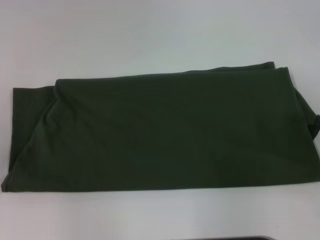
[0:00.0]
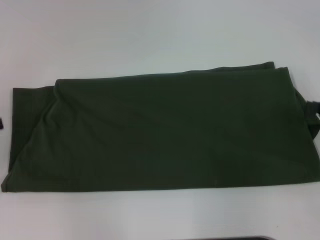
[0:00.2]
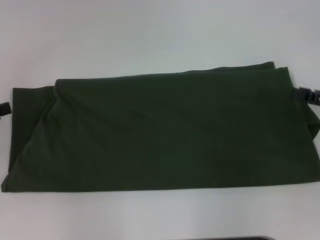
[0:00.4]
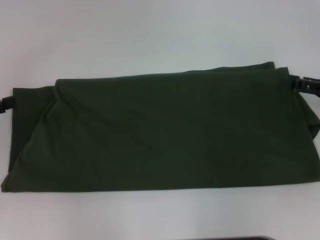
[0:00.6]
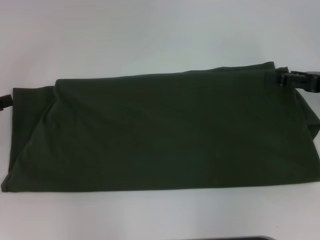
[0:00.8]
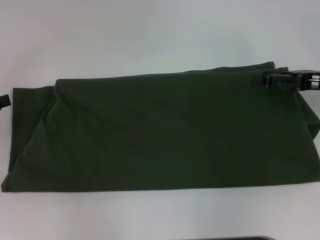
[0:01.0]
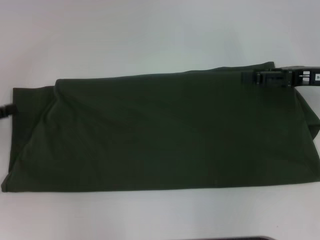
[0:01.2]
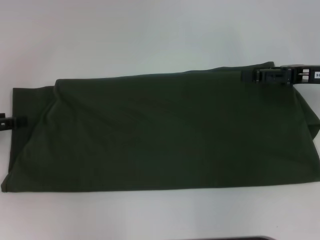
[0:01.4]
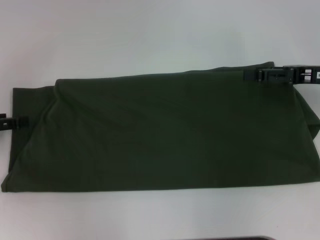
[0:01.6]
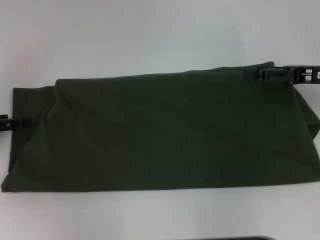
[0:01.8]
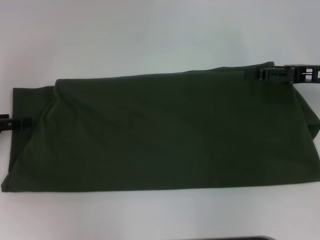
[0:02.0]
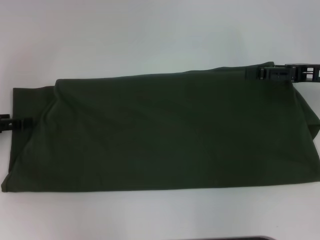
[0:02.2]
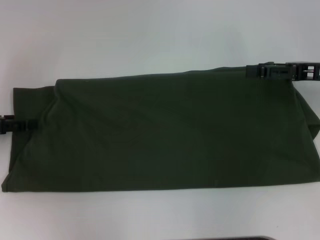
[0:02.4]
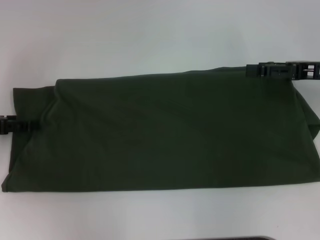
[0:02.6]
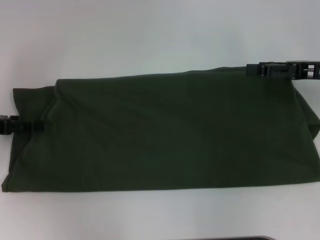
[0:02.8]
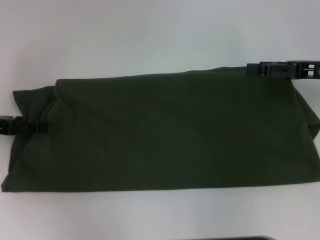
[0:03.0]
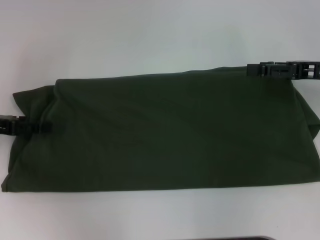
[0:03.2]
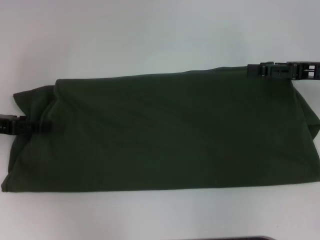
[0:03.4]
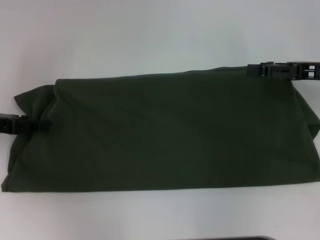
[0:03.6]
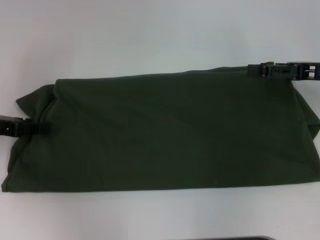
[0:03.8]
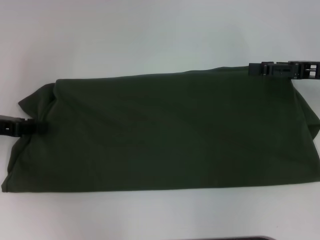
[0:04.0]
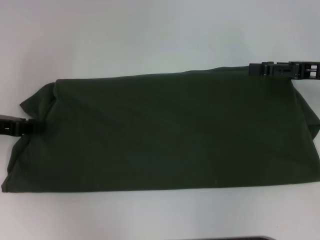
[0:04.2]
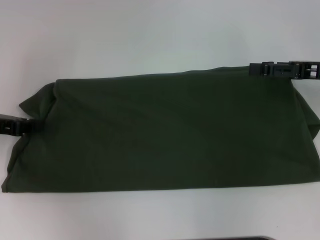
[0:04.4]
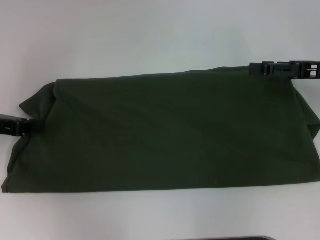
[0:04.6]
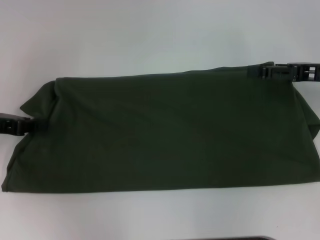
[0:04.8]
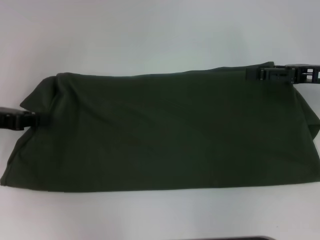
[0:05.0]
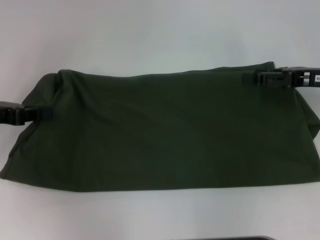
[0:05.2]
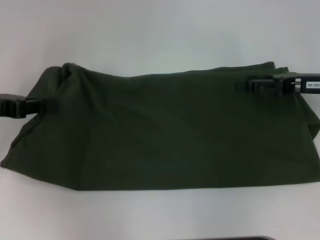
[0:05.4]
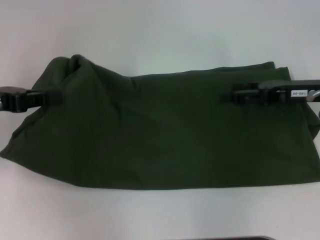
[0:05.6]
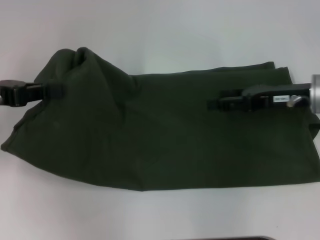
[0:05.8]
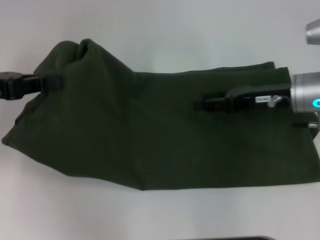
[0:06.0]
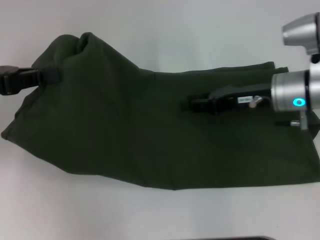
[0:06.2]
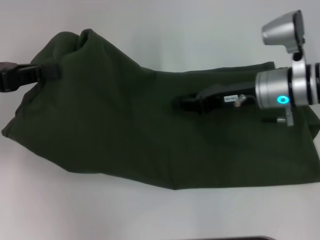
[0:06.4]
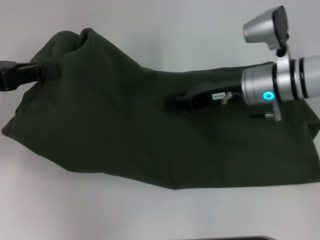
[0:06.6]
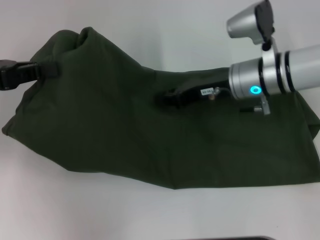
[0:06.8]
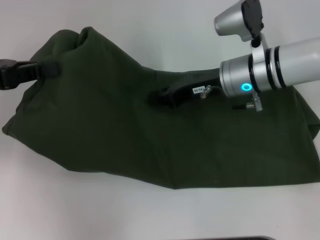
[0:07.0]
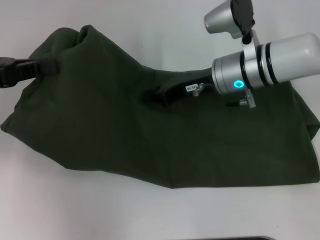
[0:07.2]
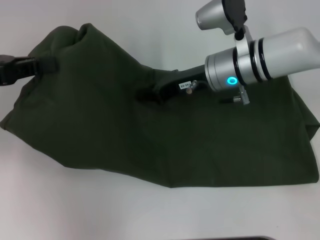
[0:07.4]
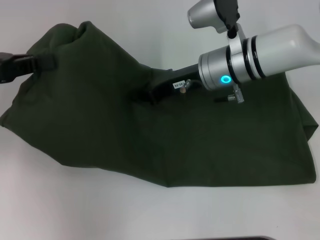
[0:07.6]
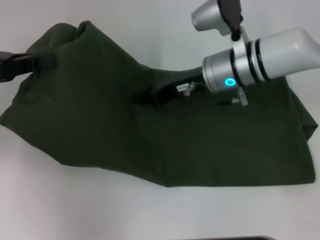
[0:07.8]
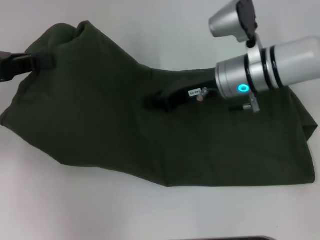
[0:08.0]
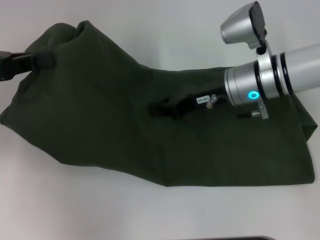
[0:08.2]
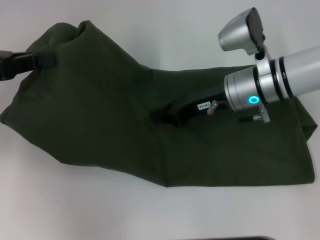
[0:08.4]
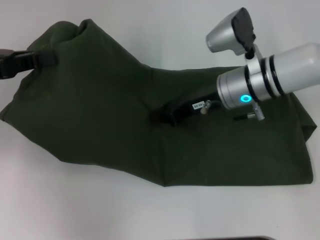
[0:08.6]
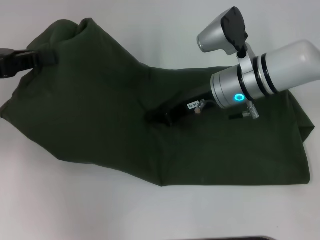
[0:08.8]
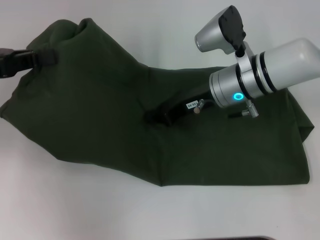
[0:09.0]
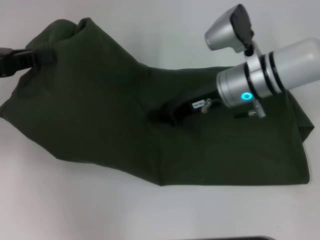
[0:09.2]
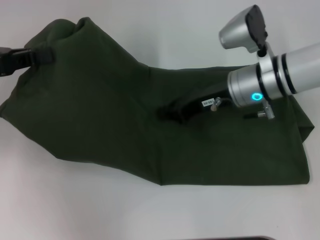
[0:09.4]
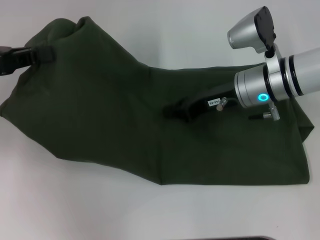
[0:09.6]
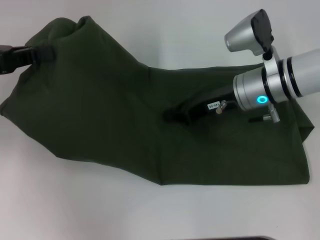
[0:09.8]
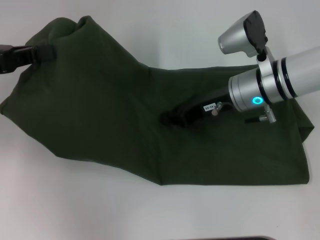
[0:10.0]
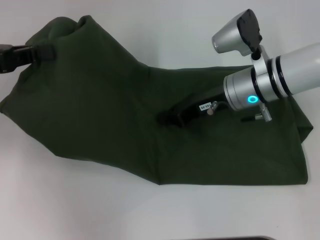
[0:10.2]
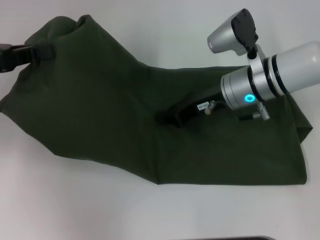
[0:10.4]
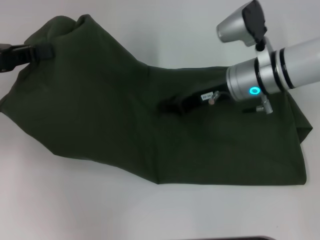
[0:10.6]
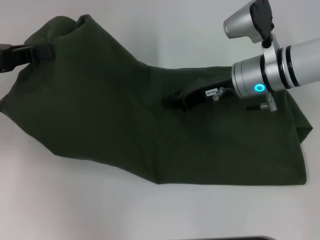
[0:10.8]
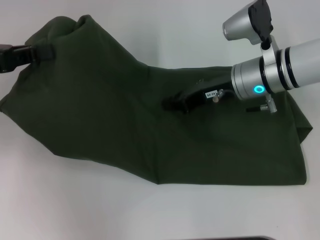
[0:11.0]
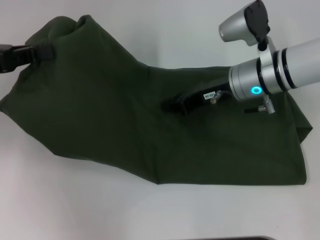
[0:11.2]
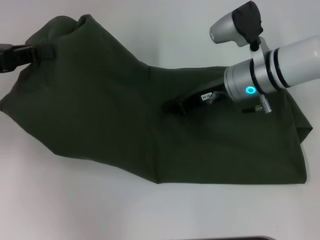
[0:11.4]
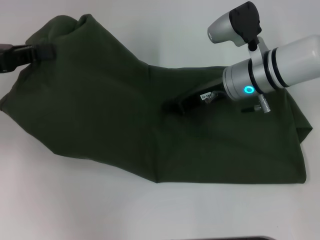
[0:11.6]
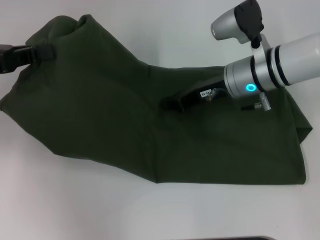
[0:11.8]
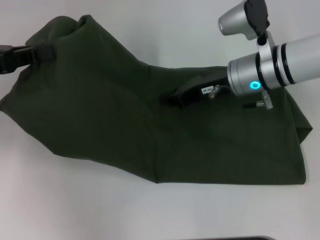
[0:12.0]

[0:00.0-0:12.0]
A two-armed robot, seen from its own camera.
0:00.0 to 0:01.6: The right gripper moves forward and to the left, some 15 cm, while the left gripper goes roughly 10 cm forward.
0:01.6 to 0:03.0: The grippers make only small movements.
0:03.0 to 0:04.4: The left gripper closes up.
0:04.4 to 0:06.0: The left gripper is displaced upward by approximately 5 cm, while the right gripper heads to the left, covering approximately 10 cm.
0:06.0 to 0:07.6: The right gripper moves to the left, approximately 15 cm, and closes its fingers.
0:07.6 to 0:12.0: The grippers make only small movements.

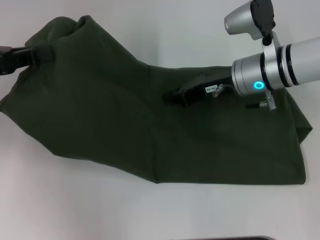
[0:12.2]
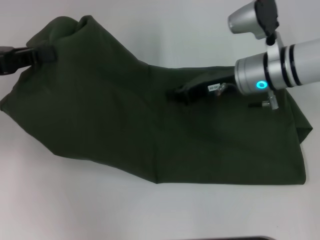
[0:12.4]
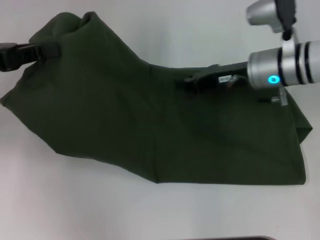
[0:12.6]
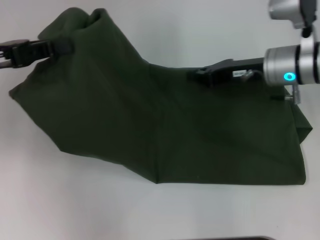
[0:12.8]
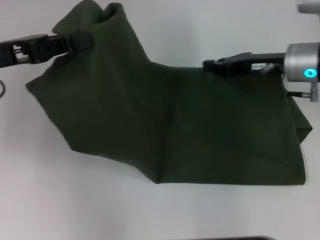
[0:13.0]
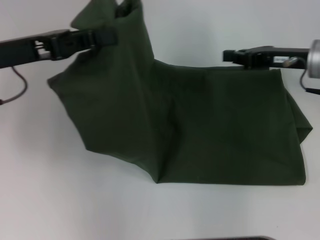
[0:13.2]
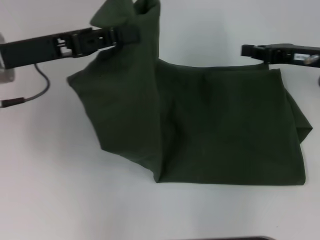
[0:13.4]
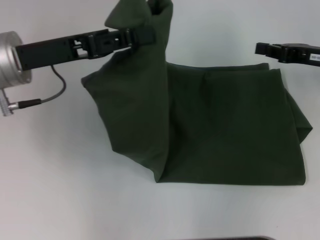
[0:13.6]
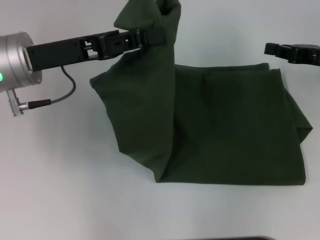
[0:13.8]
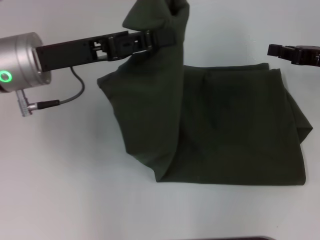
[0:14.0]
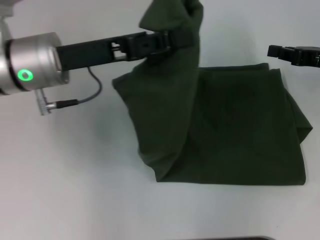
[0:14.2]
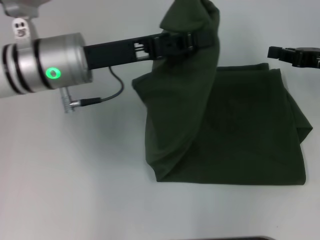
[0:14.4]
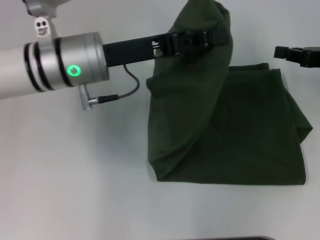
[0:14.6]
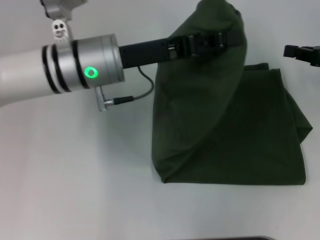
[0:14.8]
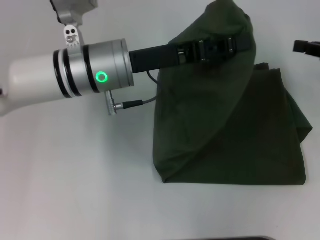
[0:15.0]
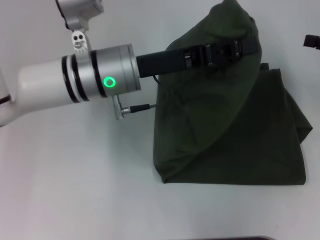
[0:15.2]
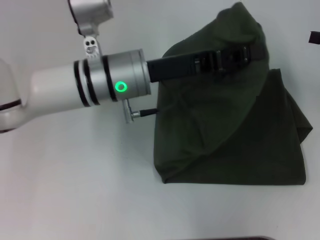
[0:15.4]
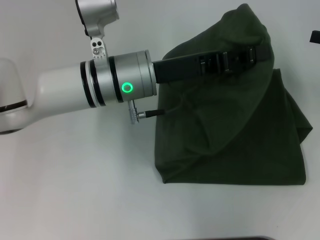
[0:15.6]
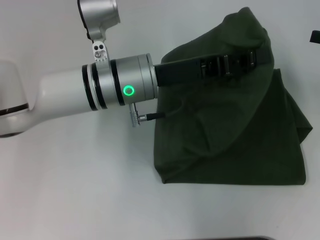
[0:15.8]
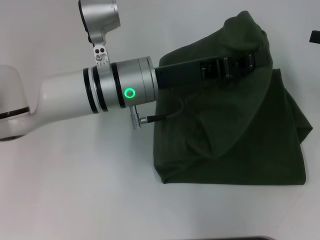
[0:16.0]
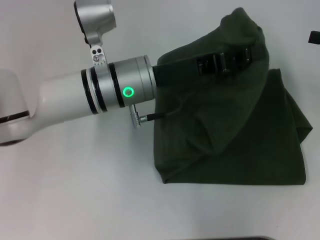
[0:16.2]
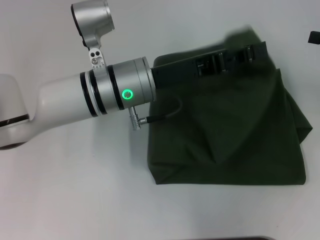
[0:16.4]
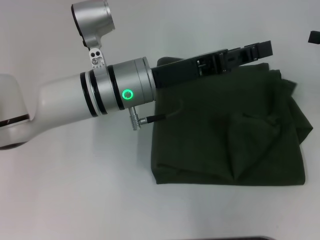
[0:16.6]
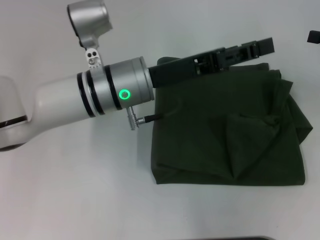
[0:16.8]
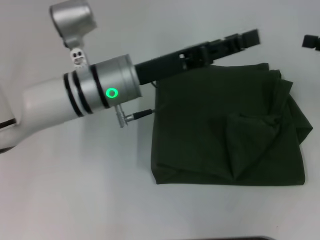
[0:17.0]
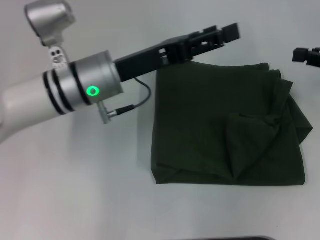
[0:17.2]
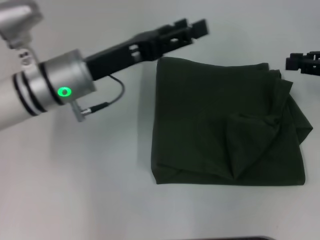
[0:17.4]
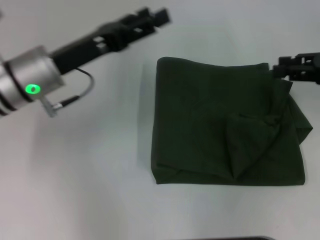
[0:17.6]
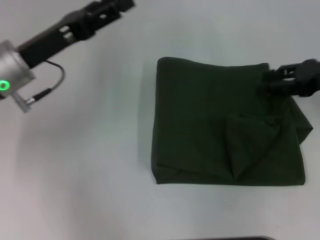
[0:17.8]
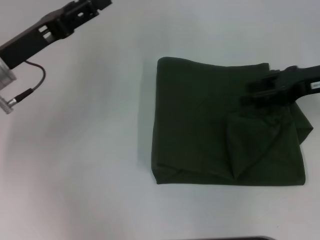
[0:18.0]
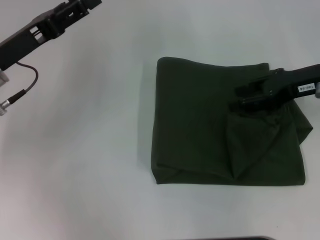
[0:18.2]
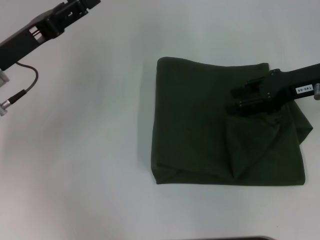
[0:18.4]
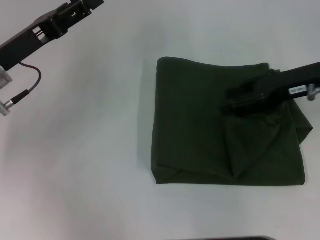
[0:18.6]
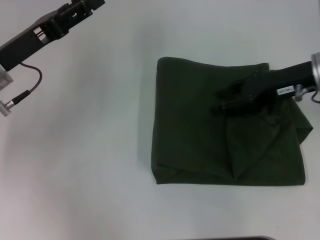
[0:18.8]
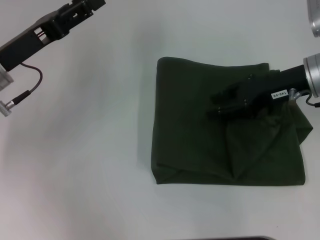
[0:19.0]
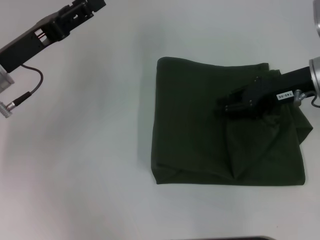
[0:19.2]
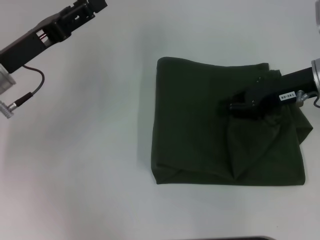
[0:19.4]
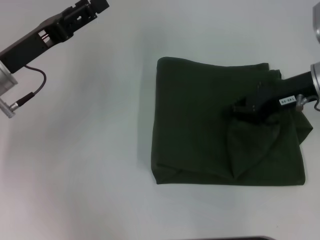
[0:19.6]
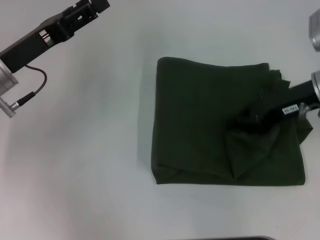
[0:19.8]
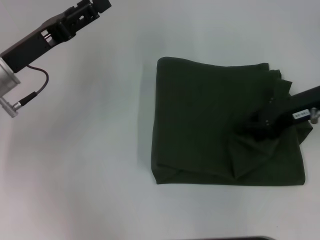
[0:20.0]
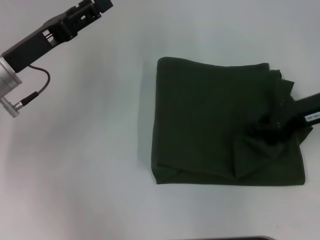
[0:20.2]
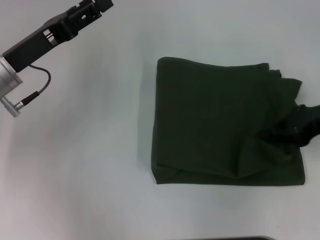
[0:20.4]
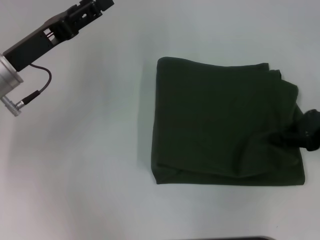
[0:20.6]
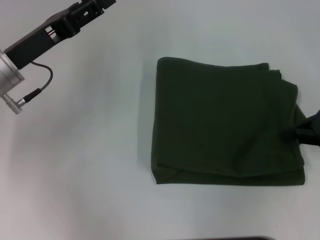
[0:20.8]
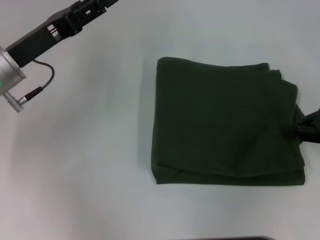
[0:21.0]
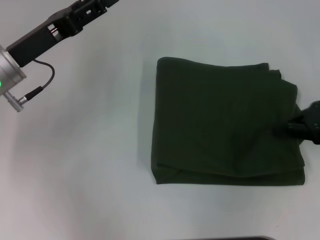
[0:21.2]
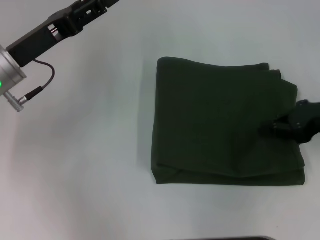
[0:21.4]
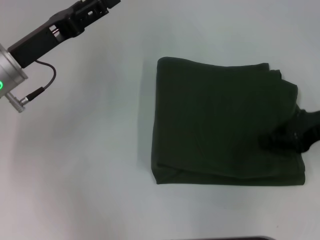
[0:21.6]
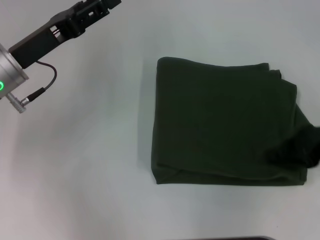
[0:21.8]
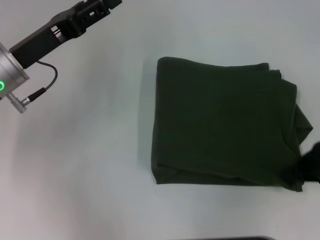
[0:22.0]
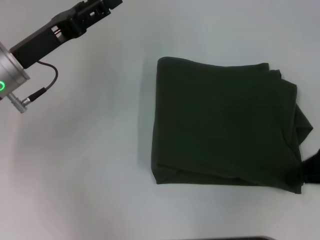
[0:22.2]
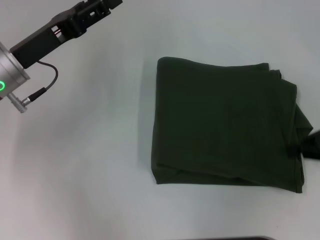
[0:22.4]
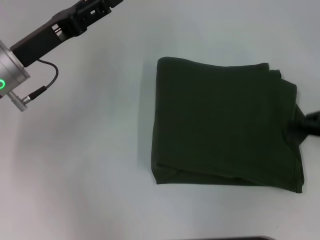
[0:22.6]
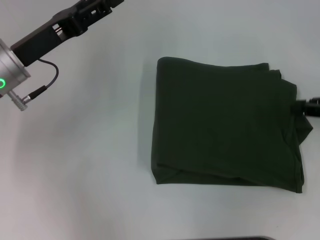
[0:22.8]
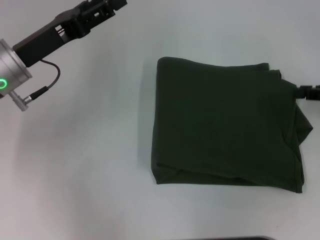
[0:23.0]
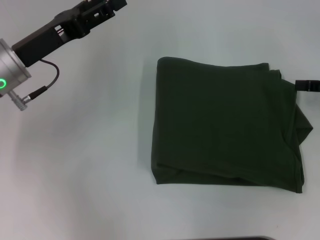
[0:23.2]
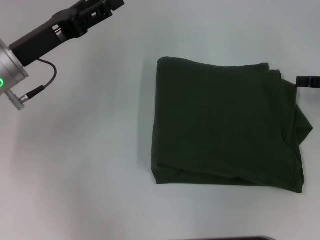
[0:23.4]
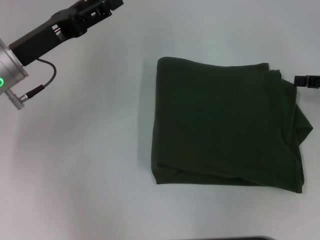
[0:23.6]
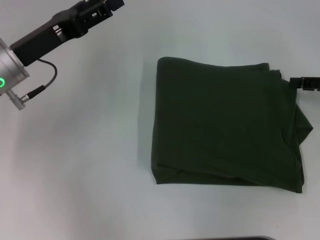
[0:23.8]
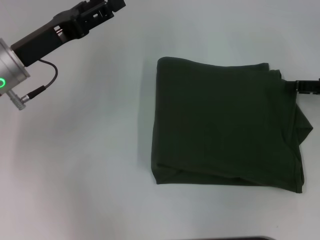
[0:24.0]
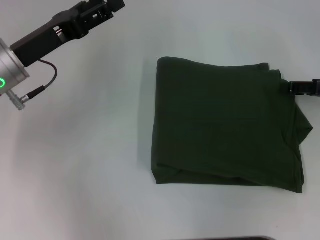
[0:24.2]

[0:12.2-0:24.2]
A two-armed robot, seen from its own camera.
Step, 0:12.2 to 0:16.8: Fold the clothes with your left hand.
0:12.2 to 0:13.8: The two grippers go about 15 cm to the right.
0:13.8 to 0:15.2: The right gripper moves to the right, about 5 cm; the left gripper heads to the right, covering about 10 cm.
0:15.2 to 0:16.6: The grippers stay close to where they were, moving slightly.
0:16.6 to 0:18.2: The right gripper goes roughly 10 cm to the left, and opens its fingers; the left gripper shifts about 20 cm to the left, and opens.
0:18.2 to 0:19.8: The right gripper closes its fingers.
0:19.8 to 0:21.2: The right gripper shifts some 5 cm to the right.
0:21.2 to 0:22.6: The grippers stay close to where they were, moving slightly.
0:22.6 to 0:24.2: The right gripper opens its fingers.
